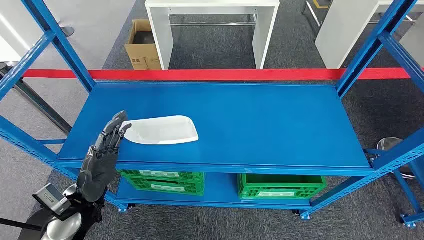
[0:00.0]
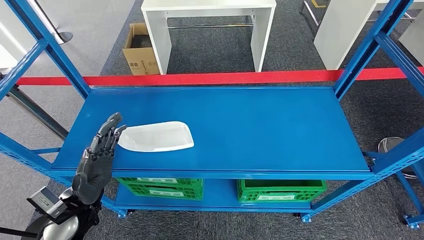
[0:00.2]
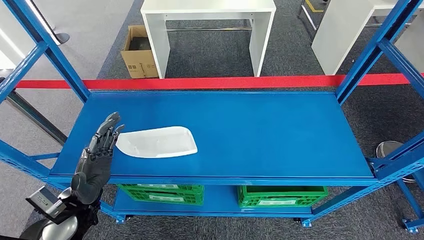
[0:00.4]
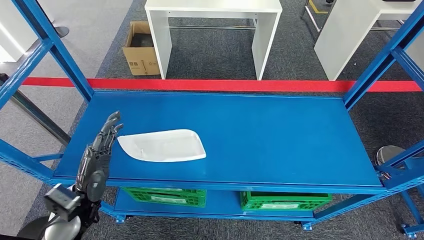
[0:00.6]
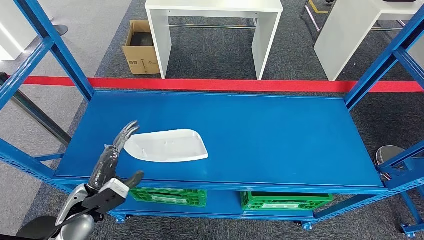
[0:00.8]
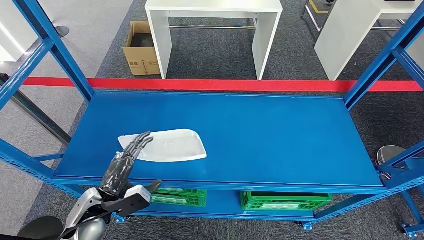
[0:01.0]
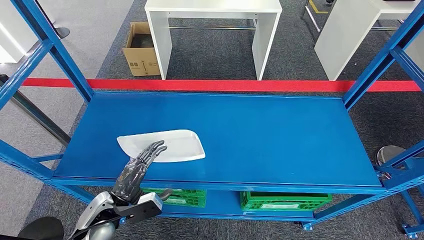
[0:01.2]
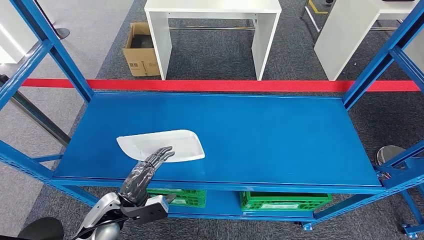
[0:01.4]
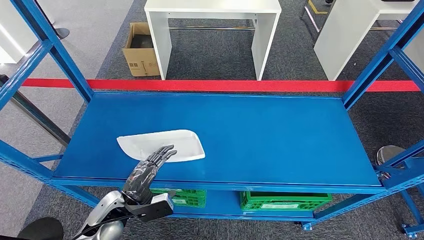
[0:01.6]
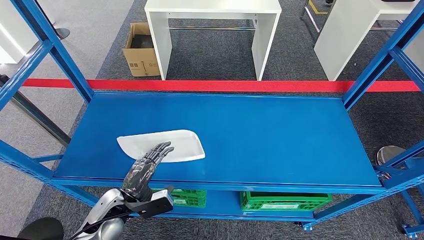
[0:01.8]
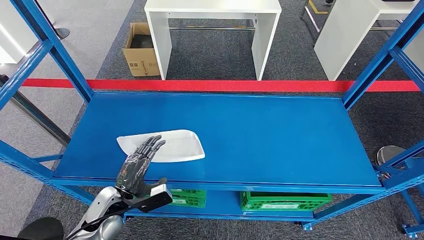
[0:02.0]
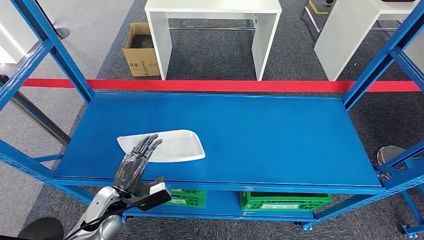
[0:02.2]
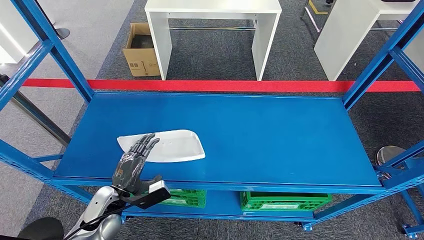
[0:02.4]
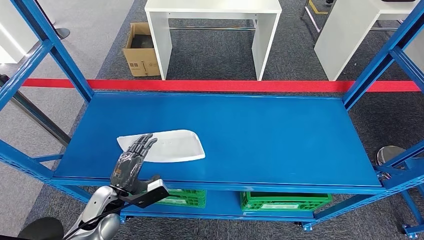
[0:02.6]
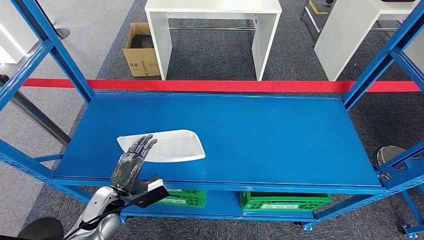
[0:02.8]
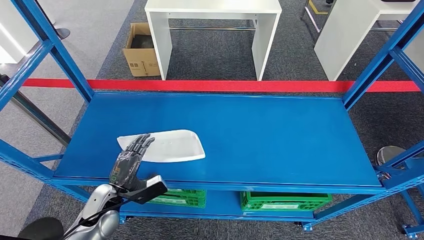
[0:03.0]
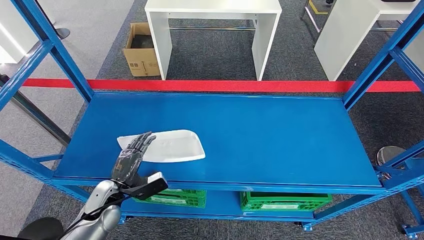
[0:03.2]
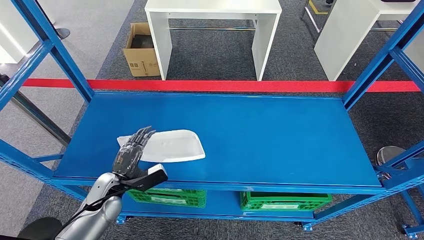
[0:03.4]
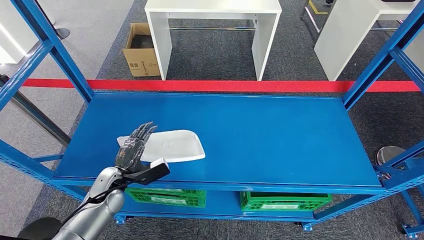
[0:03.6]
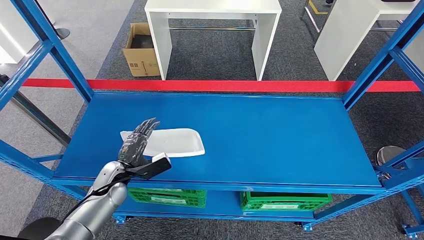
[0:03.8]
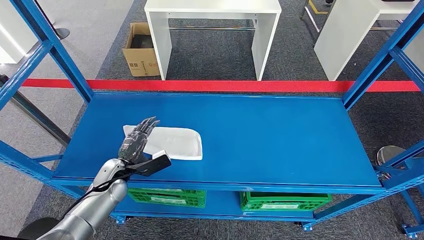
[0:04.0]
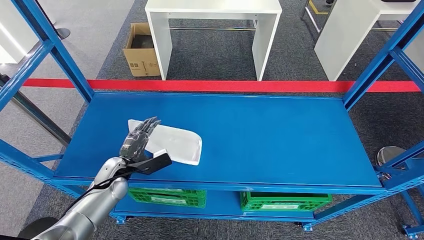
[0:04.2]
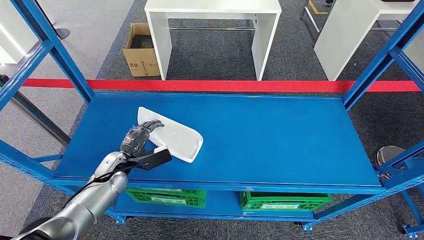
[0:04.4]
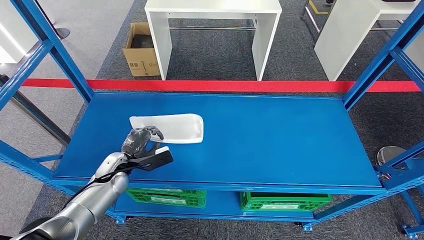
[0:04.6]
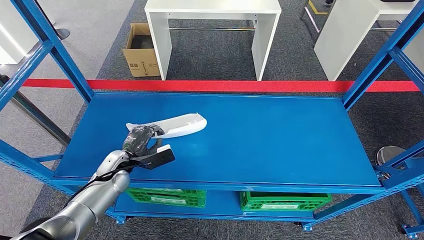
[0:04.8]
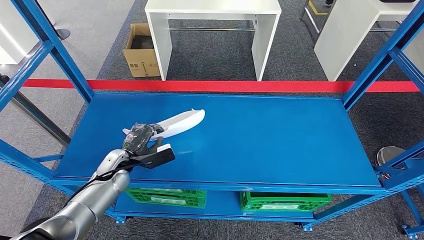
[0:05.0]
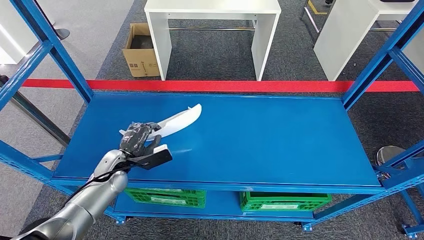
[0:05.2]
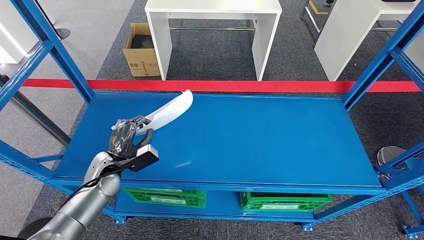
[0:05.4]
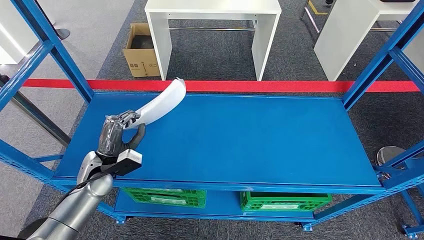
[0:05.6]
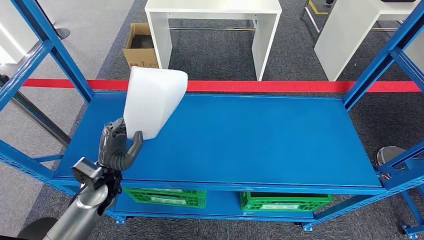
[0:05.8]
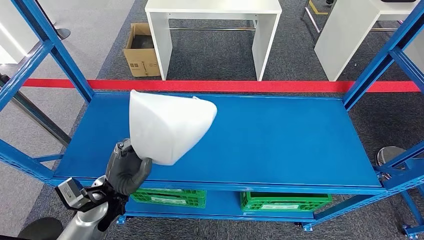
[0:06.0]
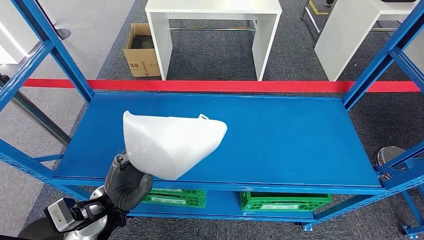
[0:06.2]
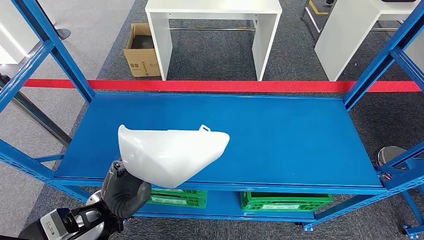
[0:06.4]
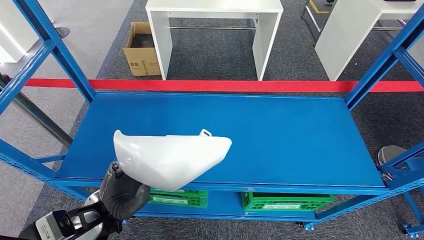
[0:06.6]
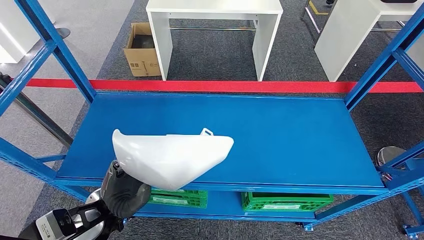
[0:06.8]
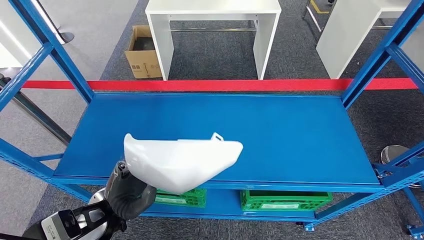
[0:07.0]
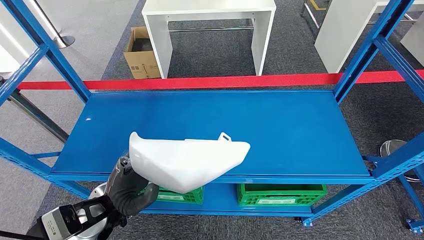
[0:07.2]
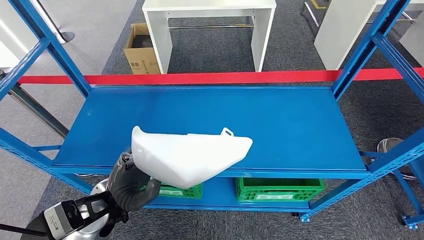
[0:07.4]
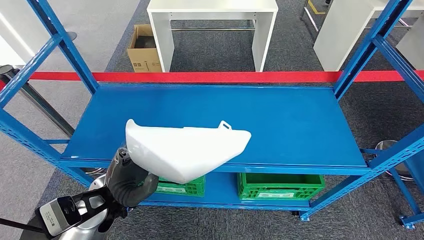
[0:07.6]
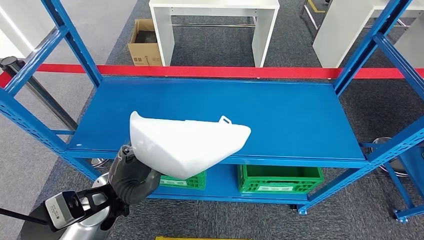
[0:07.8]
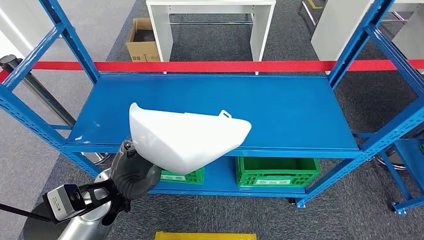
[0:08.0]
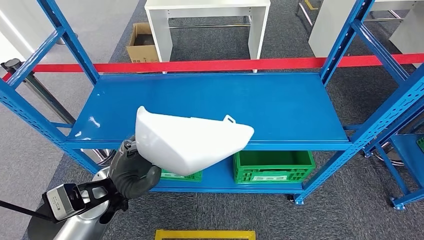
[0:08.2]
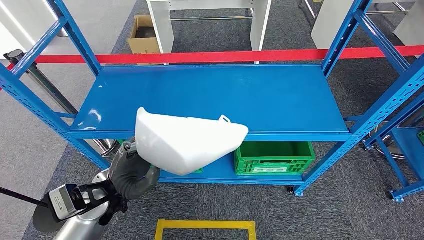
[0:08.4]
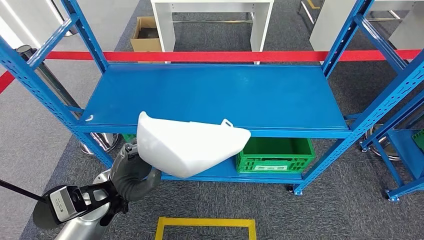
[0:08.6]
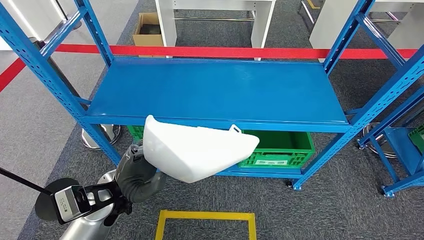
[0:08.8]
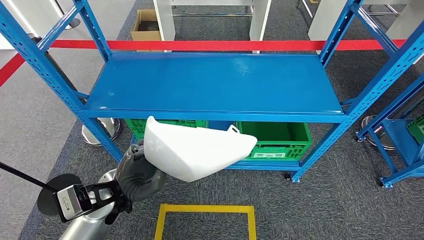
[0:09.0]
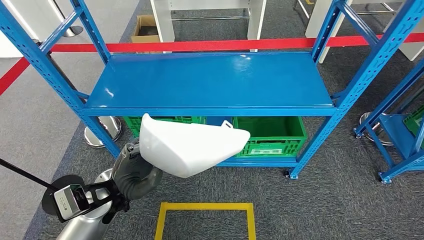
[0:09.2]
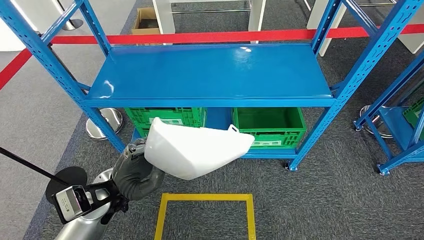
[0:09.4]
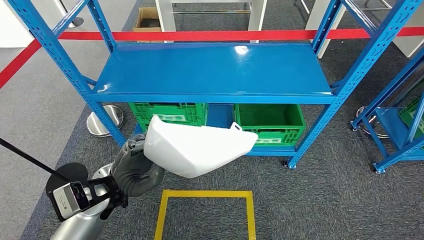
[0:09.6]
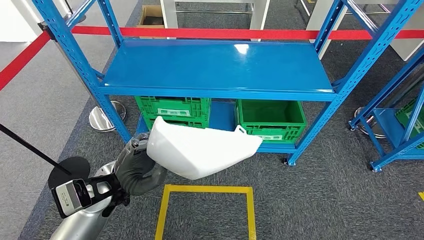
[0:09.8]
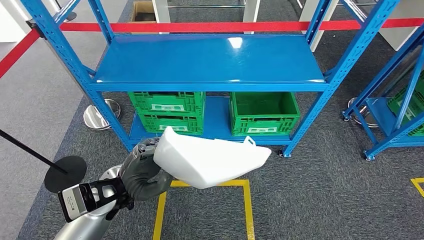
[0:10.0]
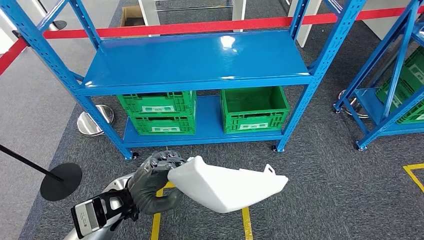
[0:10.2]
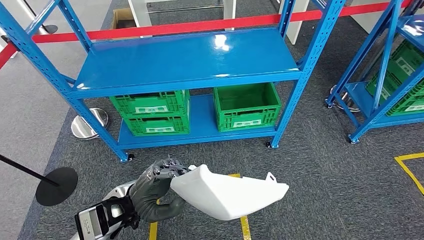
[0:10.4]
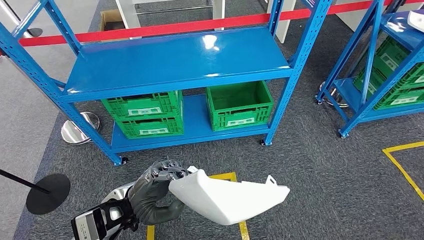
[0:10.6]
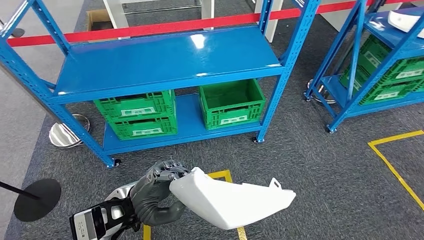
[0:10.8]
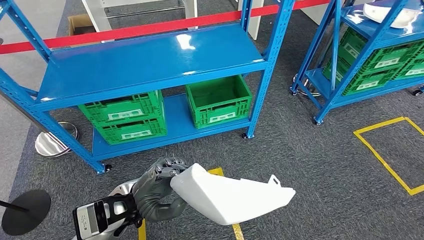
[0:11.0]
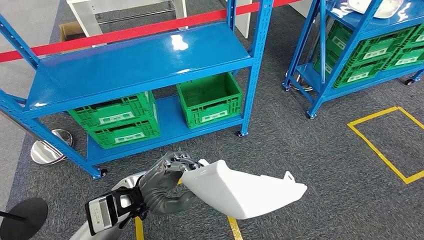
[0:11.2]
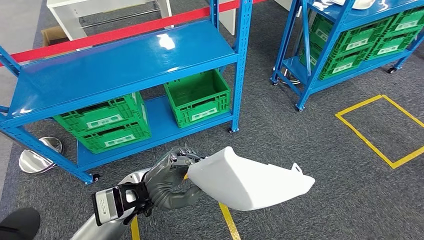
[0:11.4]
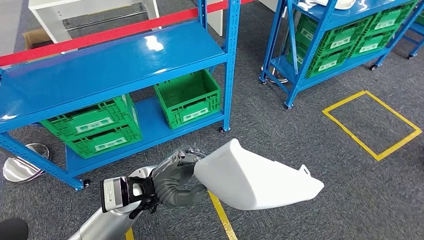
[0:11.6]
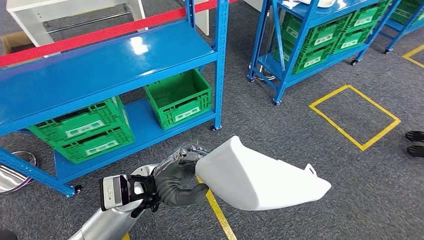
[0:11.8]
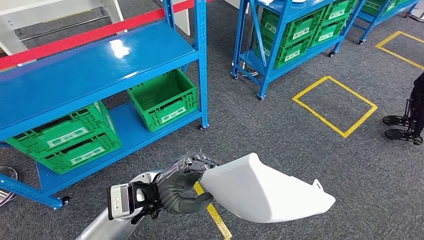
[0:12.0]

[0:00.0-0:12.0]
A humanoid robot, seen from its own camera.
Step, 0:00.0 to 0:06.4: Pick up the small component from the shelf.
0:01.6 to 0:03.0: The hands make only small movements.
0:03.0 to 0:04.4: The left hand moves forward, some 10 cm.
0:04.4 to 0:06.0: The left hand shifts some 10 cm backward and upward.

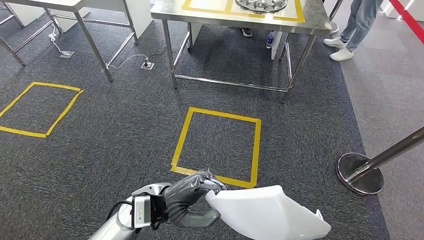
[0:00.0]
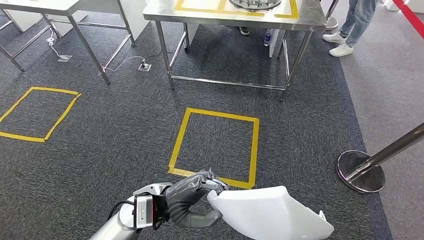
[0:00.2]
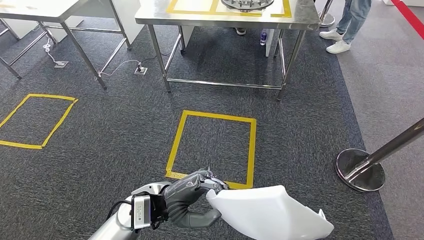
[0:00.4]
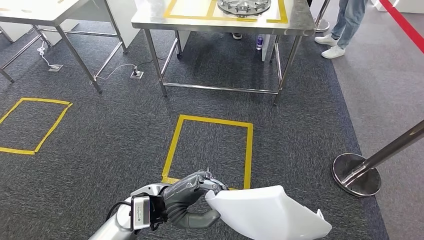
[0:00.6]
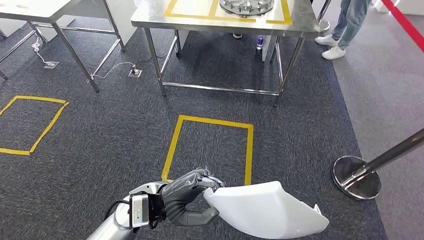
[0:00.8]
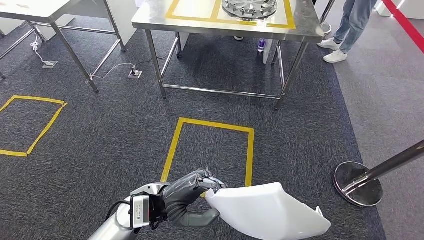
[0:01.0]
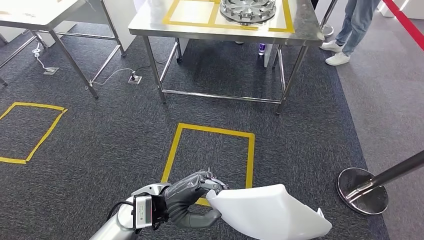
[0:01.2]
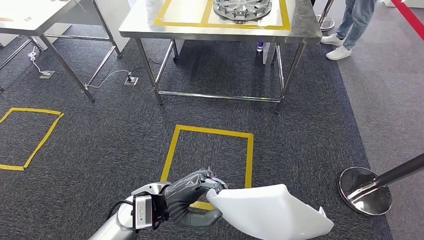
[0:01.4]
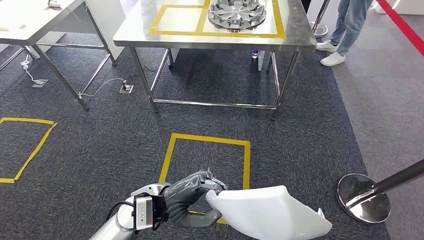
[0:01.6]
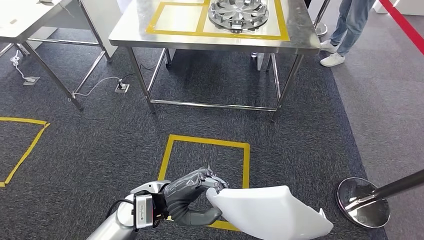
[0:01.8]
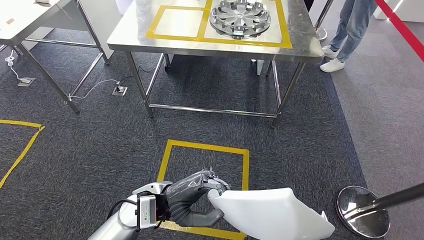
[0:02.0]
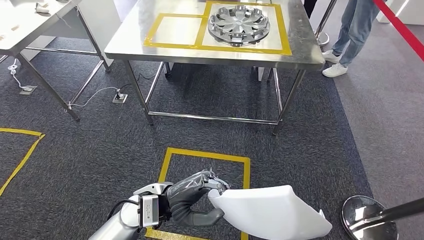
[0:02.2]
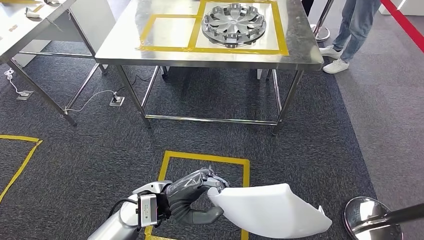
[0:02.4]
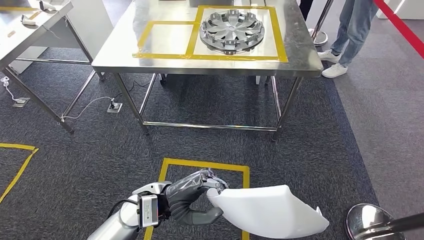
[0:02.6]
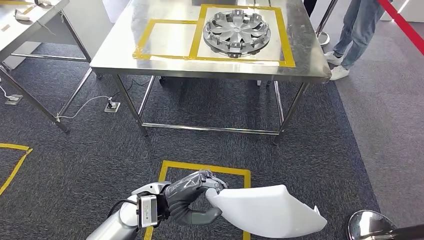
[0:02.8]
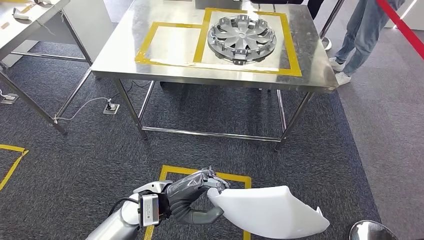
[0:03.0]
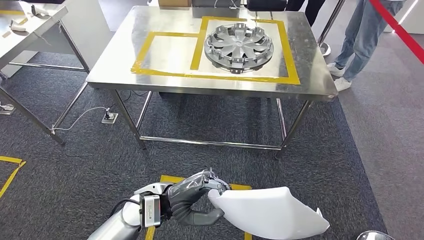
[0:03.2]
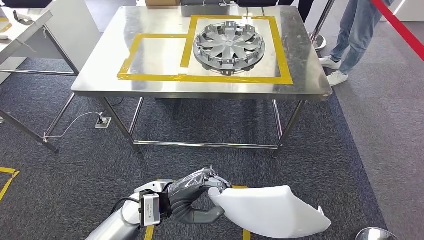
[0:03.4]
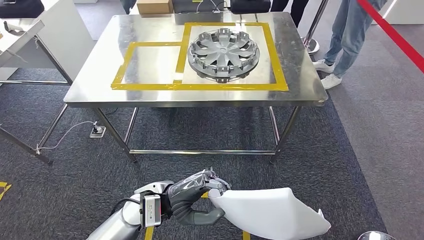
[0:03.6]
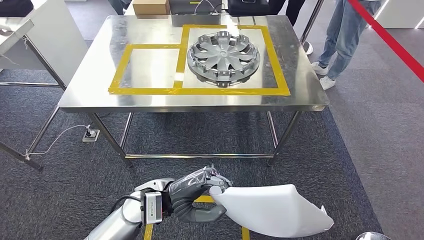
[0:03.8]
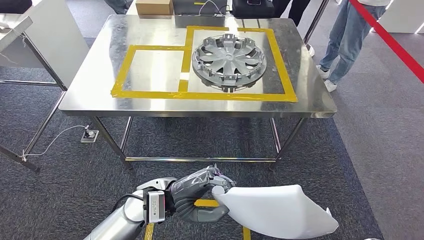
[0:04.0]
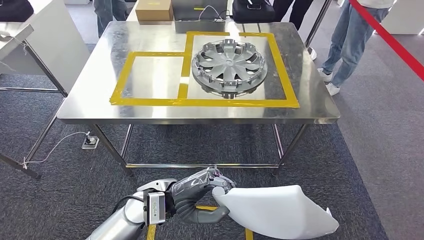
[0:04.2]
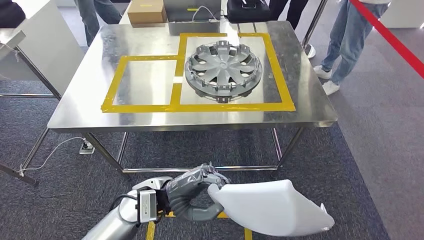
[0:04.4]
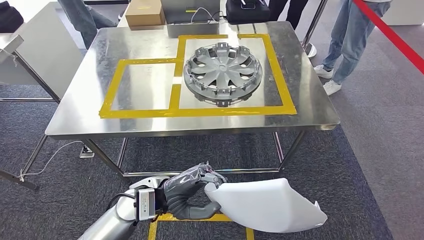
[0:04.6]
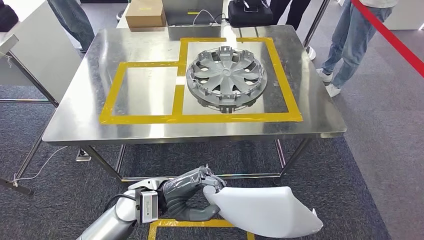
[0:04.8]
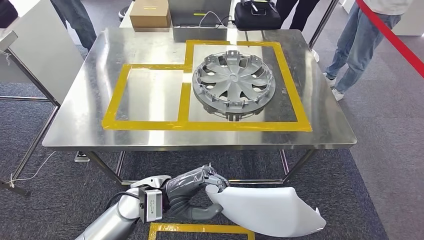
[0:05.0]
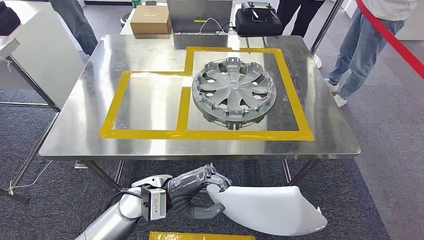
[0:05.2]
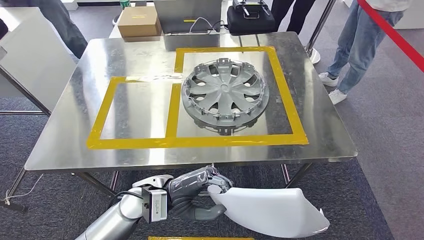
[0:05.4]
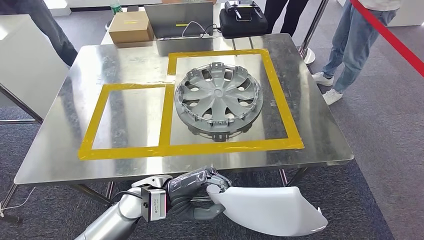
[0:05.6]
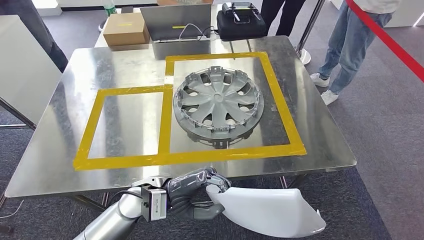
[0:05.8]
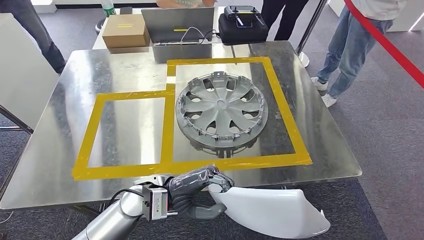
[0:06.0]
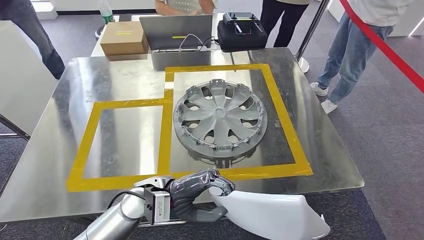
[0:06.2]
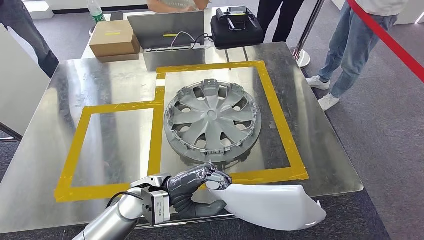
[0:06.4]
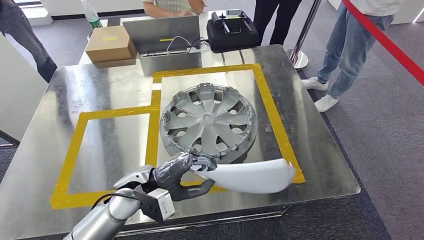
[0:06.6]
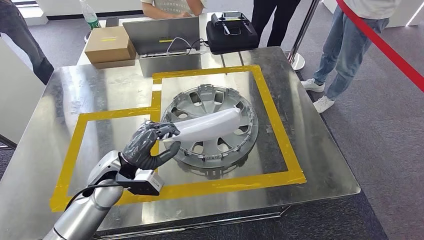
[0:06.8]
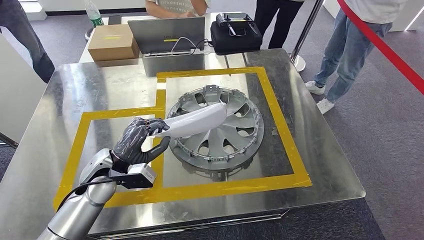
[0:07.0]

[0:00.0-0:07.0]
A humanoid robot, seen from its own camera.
Step, 0:00.0 to 0:04.2: Move the small component to the workbench.
